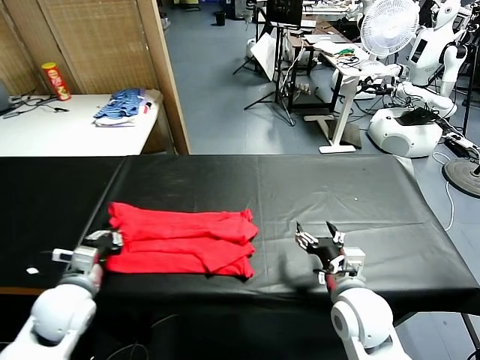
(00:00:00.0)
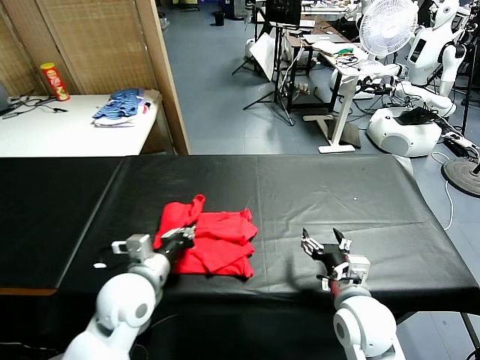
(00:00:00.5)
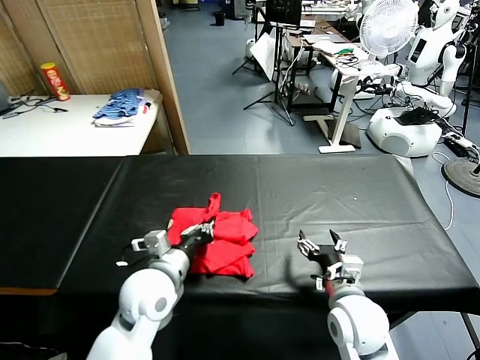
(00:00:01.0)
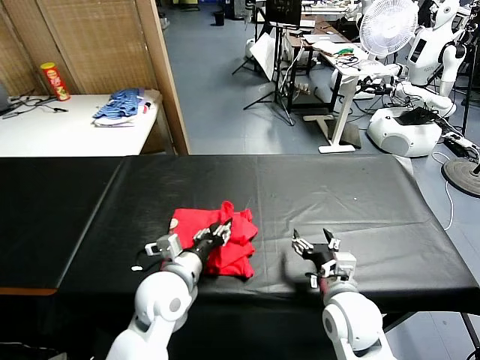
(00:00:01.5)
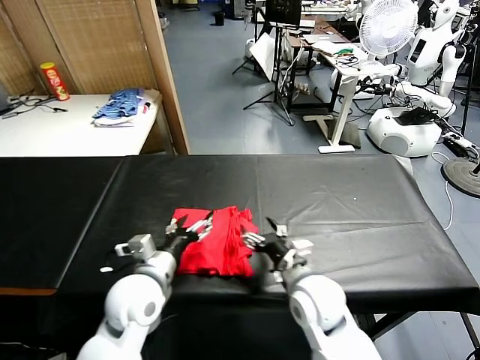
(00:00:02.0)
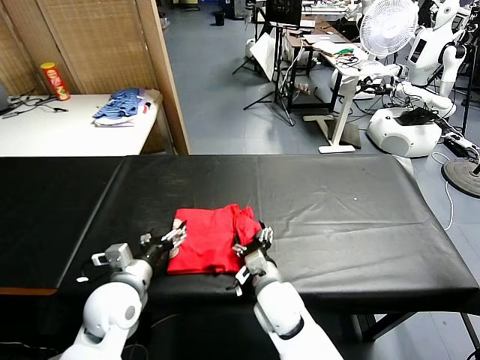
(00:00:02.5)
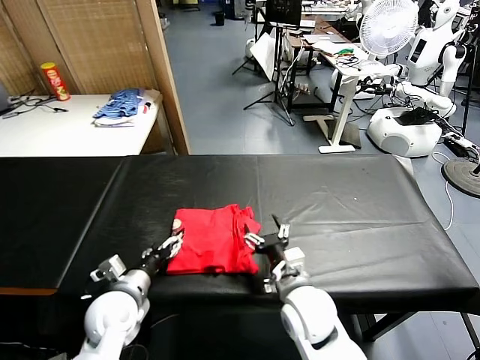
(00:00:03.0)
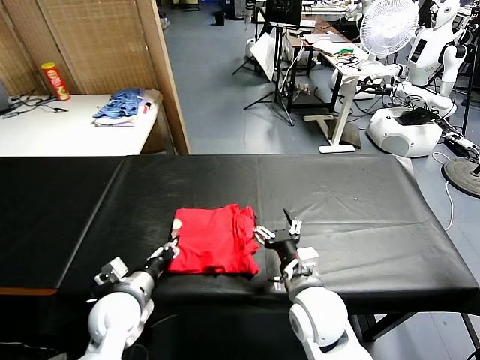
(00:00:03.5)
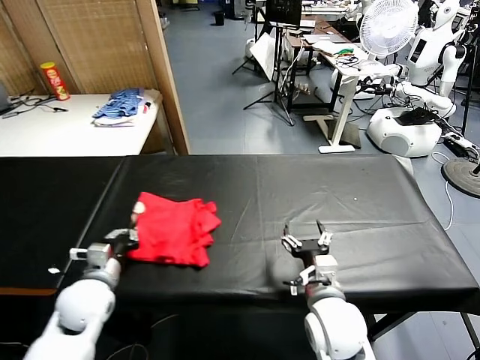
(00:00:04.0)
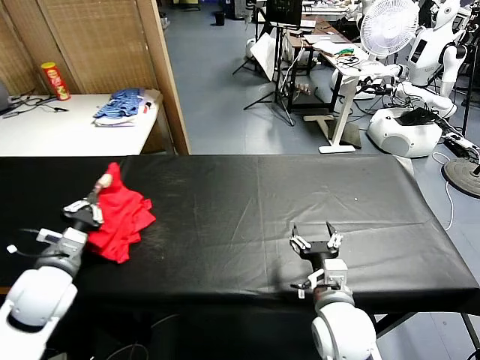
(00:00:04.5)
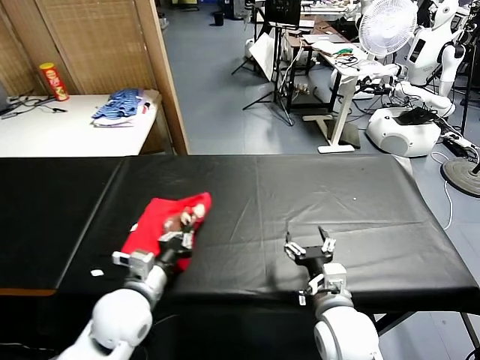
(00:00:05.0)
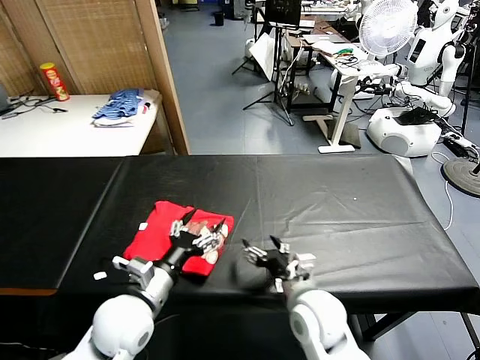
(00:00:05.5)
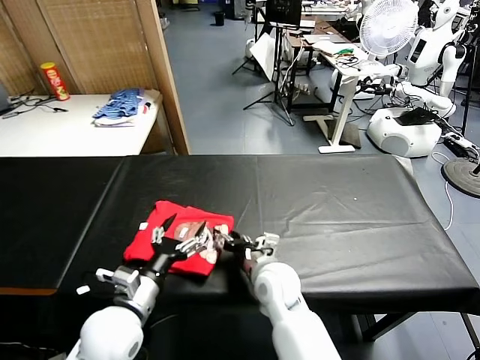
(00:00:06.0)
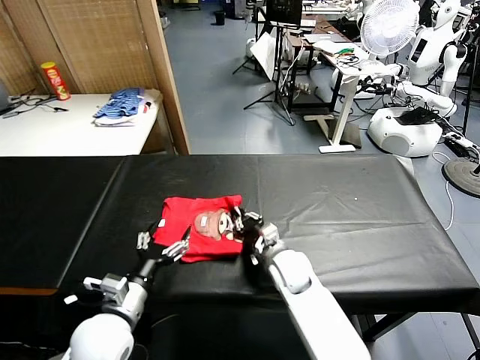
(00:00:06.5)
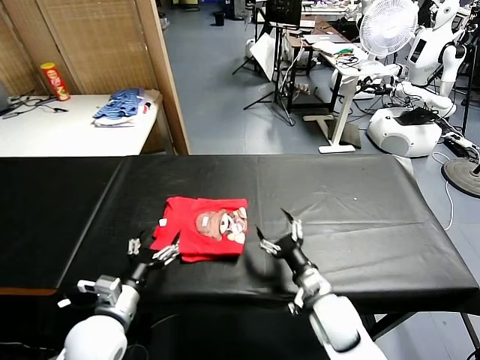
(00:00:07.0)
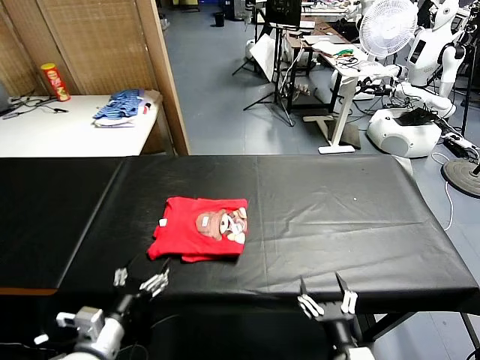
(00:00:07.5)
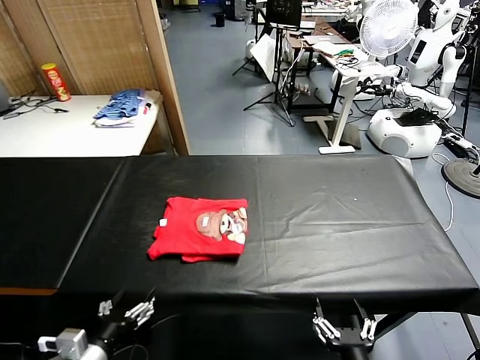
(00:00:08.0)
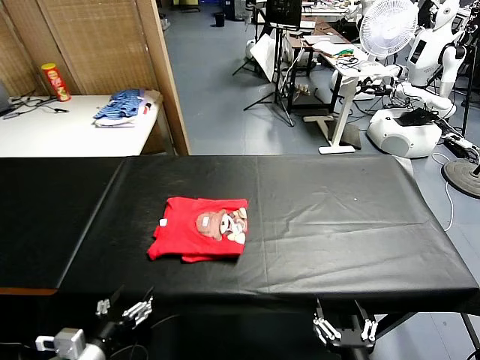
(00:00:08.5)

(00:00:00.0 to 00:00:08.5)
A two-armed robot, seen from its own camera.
Task of the whole recording: fold and organize the clothes.
Step, 00:00:00.0 - 00:00:01.5: use the left gripper to drag the left edge of the fabric to the left and folds it over the right edge.
Step, 00:00:02.0 - 00:00:05.0: Flip the folded clothes over with left gripper.
Step, 00:00:05.5 - 00:00:06.5: Drag the clothes to the center of the table.
00:00:00.0 - 00:00:02.0: The left gripper shifts some 10 cm to the right, and opens up. The right gripper goes some 10 cm to the left.
00:00:02.0 - 00:00:04.0: The right gripper goes some 5 cm backward; the left gripper heads to the left and downward, covering about 15 cm, and closes.
00:00:04.0 - 00:00:06.5: The right gripper moves forward and downward, some 15 cm, and closes; the left gripper goes left and right, about 15 cm each way, reversing 2 times, and opens its fingers.
00:00:06.5 - 00:00:08.5: The left gripper is displaced backward and to the left by some 10 cm. The right gripper shifts some 35 cm backward, and opens.
